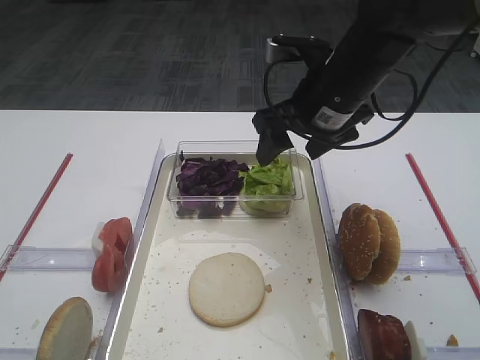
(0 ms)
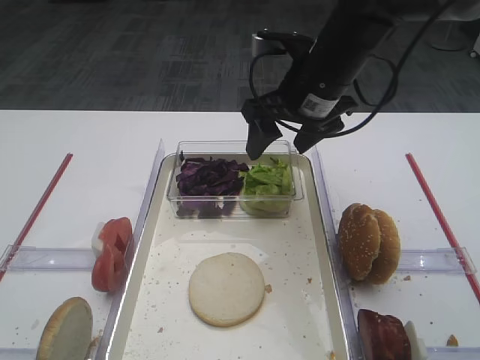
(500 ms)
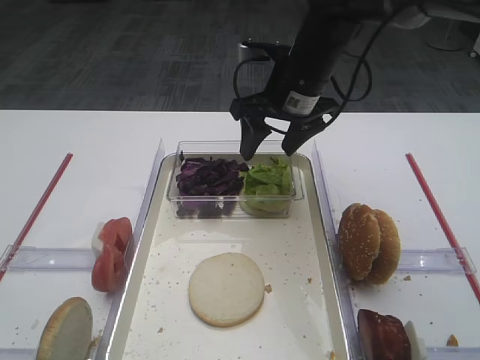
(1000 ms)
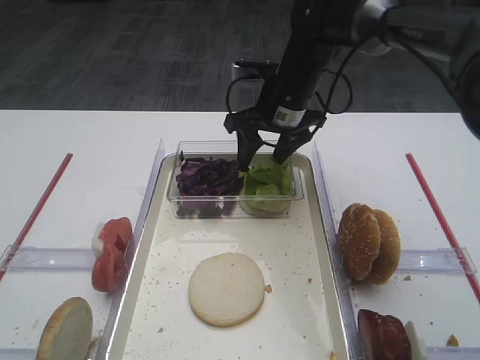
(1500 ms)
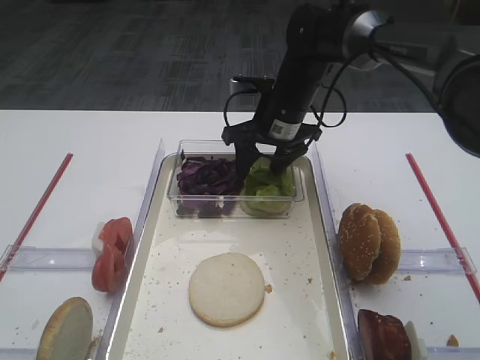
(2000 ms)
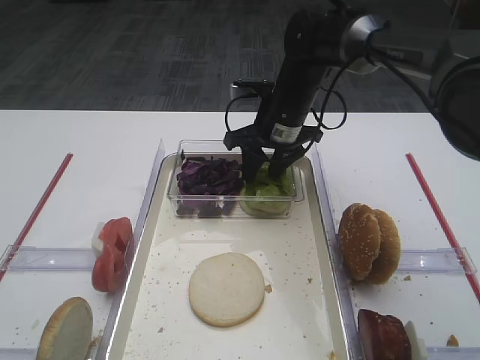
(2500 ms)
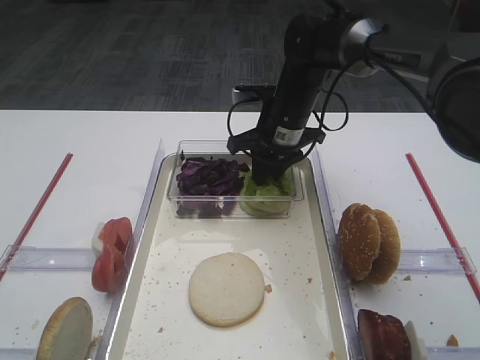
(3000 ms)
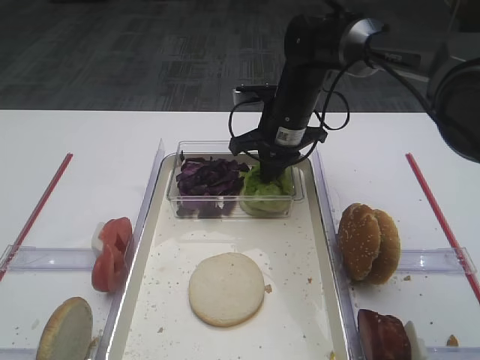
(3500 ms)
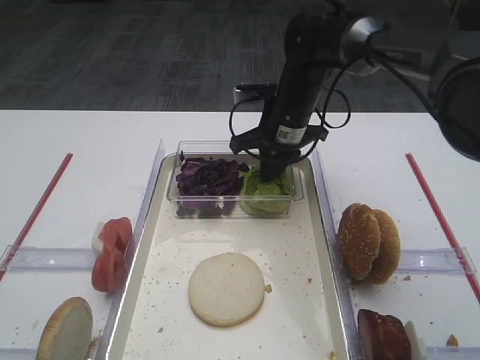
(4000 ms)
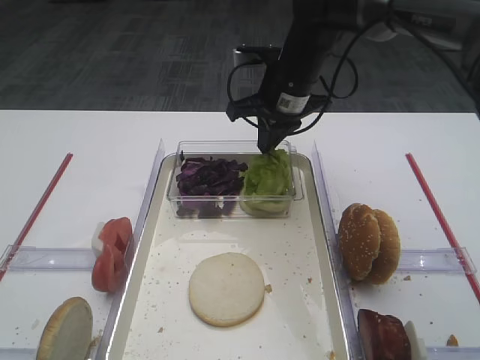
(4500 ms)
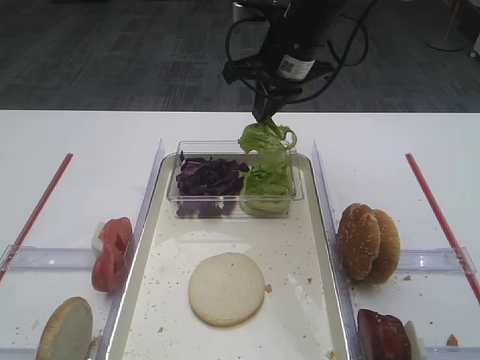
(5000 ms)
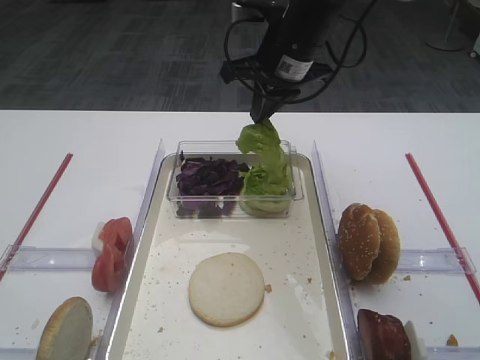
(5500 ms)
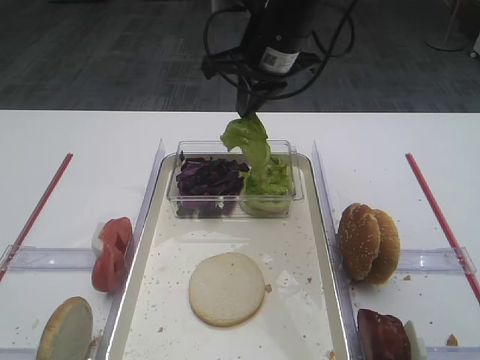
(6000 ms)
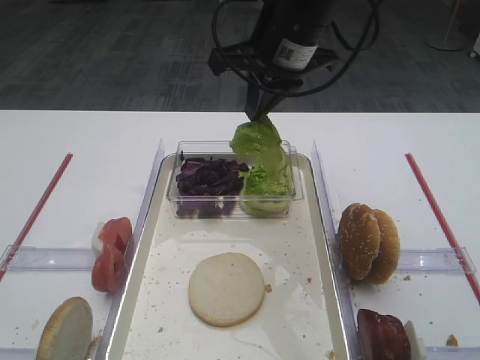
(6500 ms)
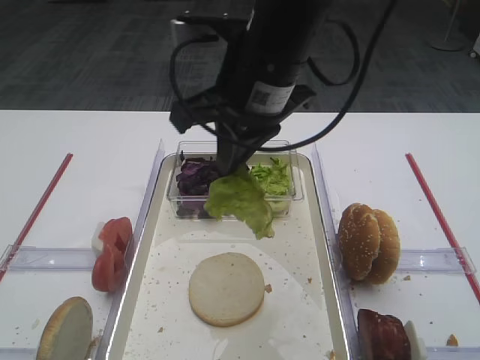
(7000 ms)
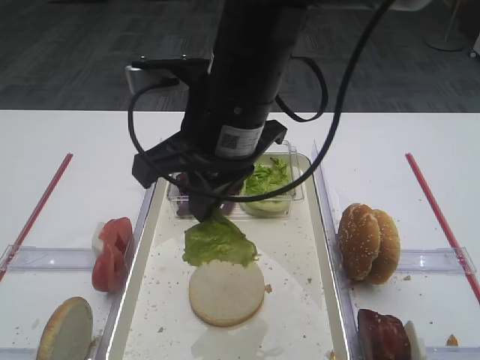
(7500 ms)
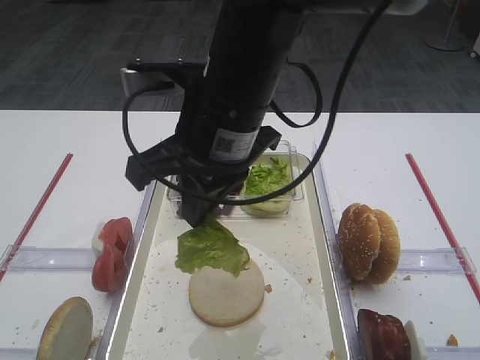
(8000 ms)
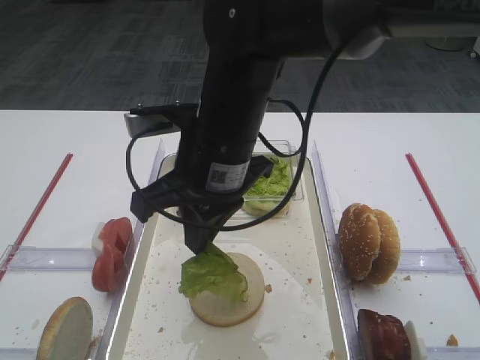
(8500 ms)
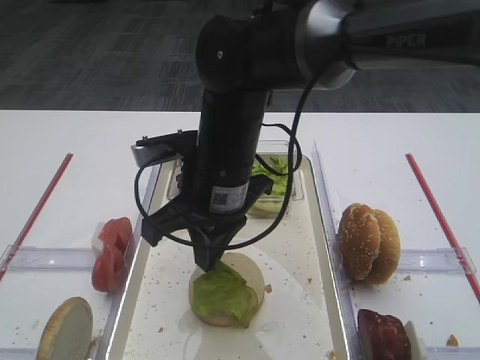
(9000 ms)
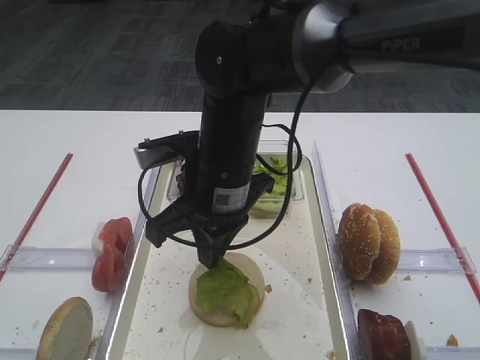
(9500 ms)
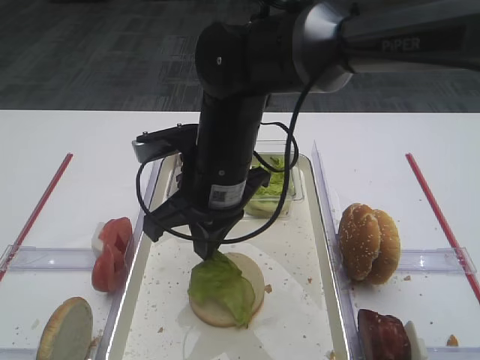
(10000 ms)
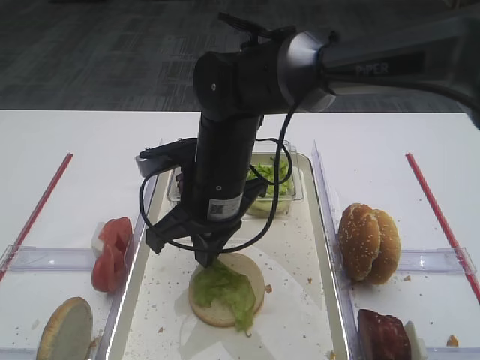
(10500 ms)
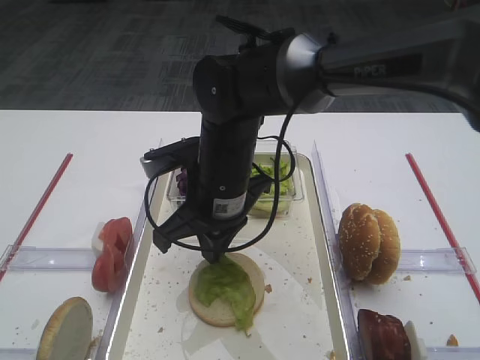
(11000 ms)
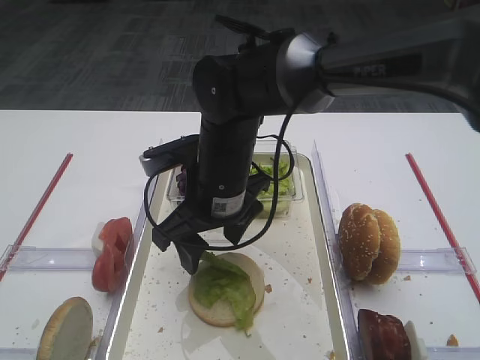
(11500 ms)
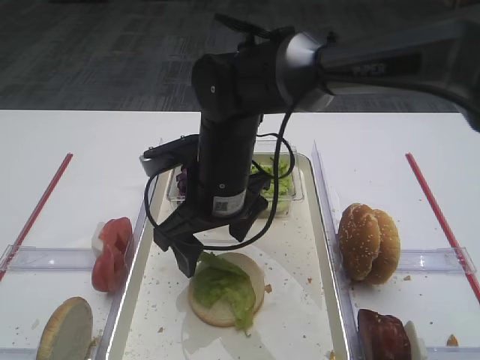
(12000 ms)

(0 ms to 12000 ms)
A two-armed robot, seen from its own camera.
Step, 0 ms - 5500 ms: Pick up the lettuce leaf with the right gripper.
Step, 6000 ms - 11500 ms: Place the lettuce leaf on the bread slice with the right gripper.
0 ms - 2000 ms: The right gripper goes some 10 cm forward and downward.
2000 ms - 4000 ms: The right gripper closes.
4000 ms - 6000 ms: The right gripper is displaced upward by approximately 15 cm.
6000 ms - 8000 ms: The right gripper moves backward, some 15 cm.
8000 ms - 10000 ms: The right gripper is displaced downward by about 10 cm.
10000 ms - 12000 ms: The right gripper opens up.

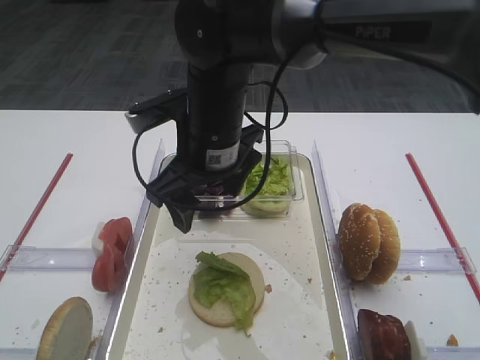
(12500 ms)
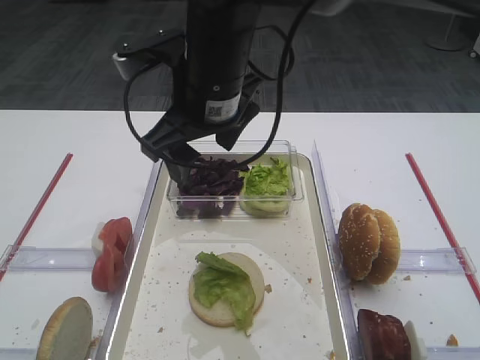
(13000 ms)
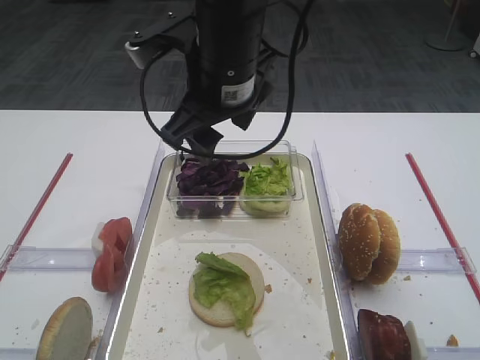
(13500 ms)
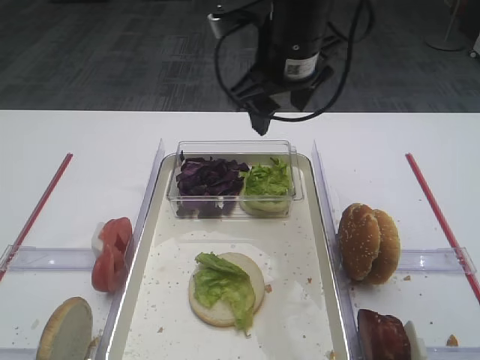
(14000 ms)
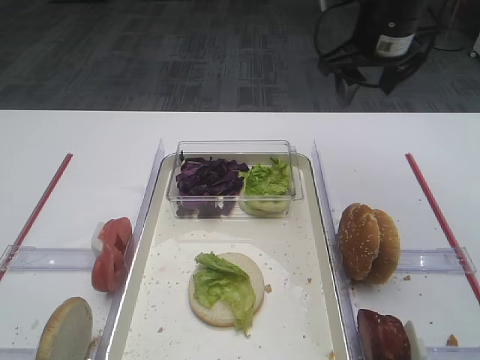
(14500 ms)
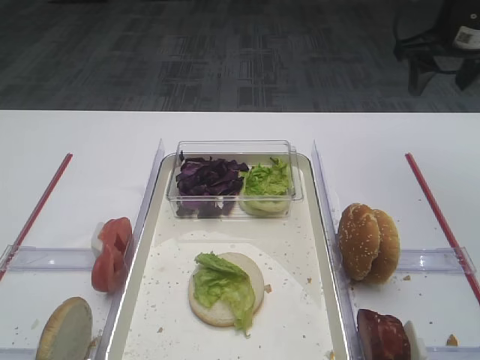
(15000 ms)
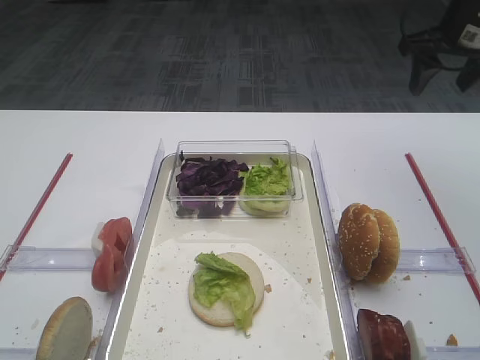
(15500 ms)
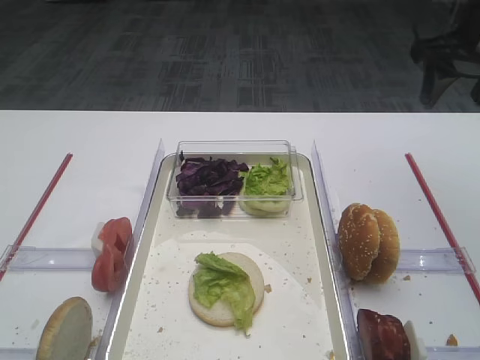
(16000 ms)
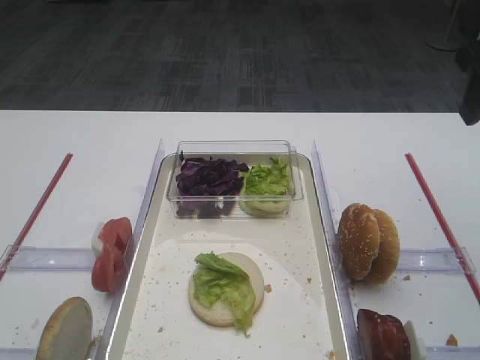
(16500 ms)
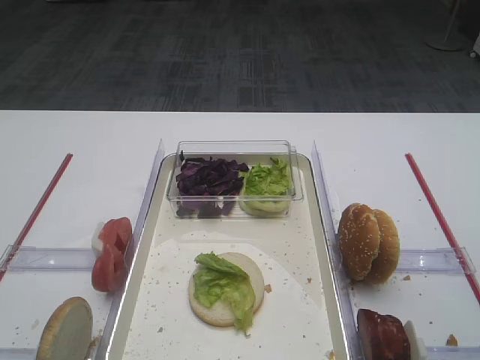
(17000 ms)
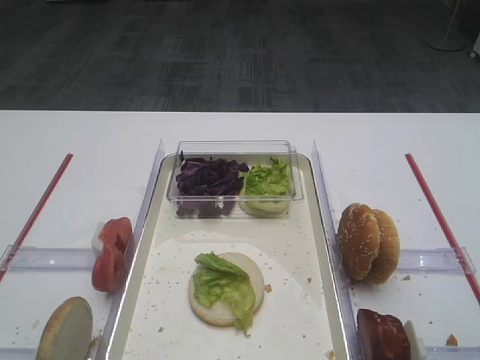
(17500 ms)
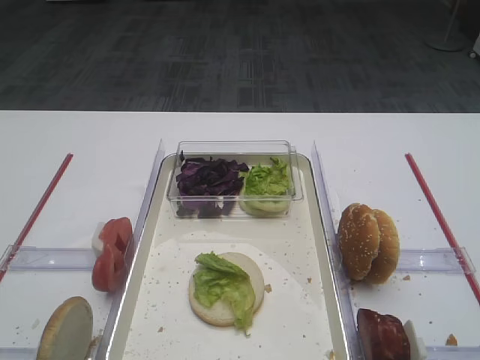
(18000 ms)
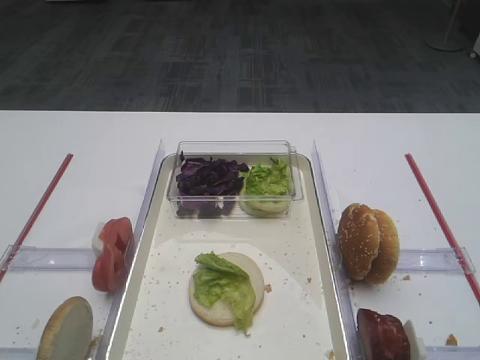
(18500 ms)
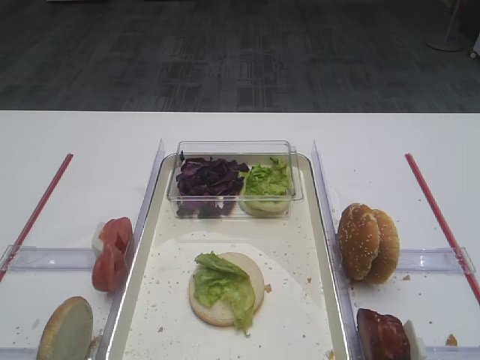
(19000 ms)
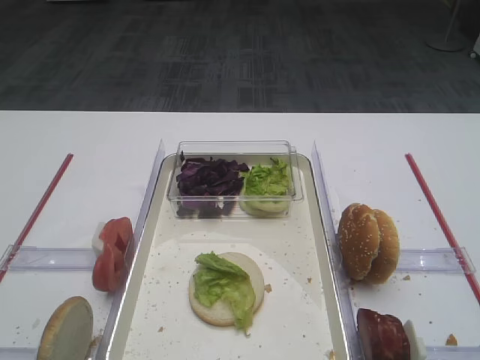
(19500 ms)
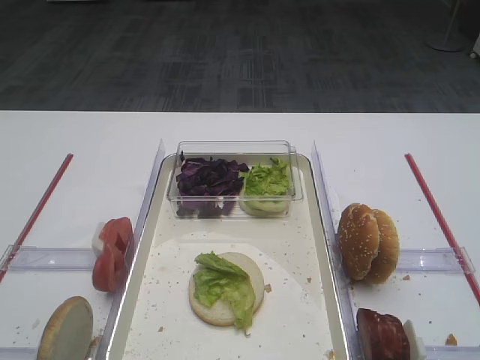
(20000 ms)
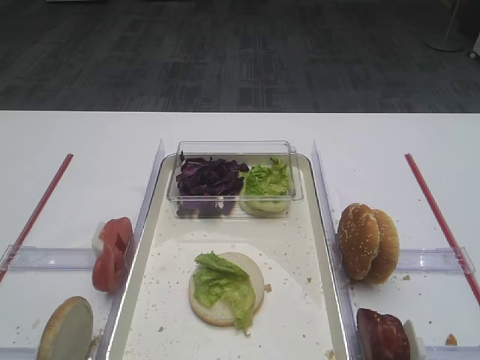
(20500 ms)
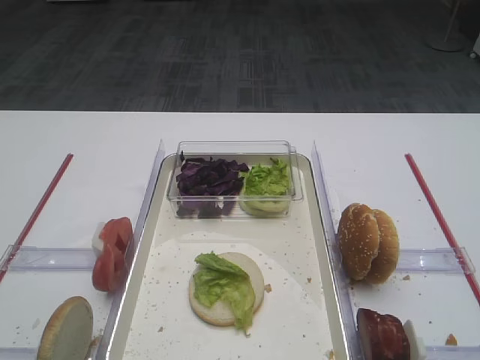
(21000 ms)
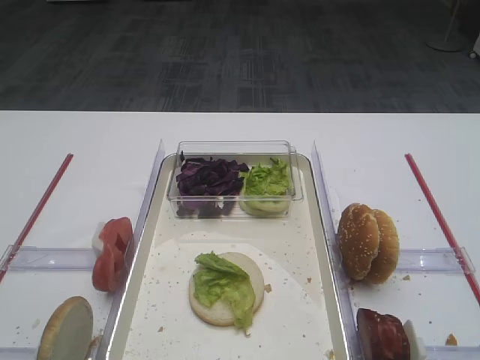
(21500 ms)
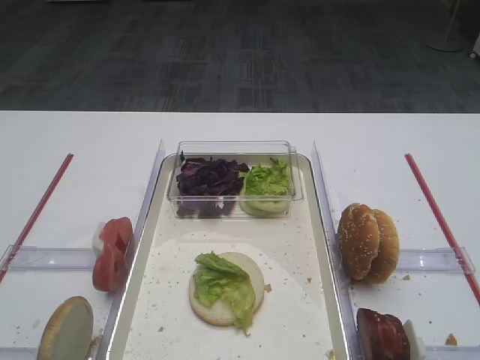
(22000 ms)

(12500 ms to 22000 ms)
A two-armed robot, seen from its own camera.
12500 ms - 14500 ms: The right gripper is displaced to the right and forward by some 25 cm.
14500 ms - 16500 ms: The right gripper is displaced backward and to the right by about 15 cm.
16500 ms - 18000 ms: The right gripper travels backward by about 25 cm.
20000 ms - 22000 ms: Both grippers stay about where they are.

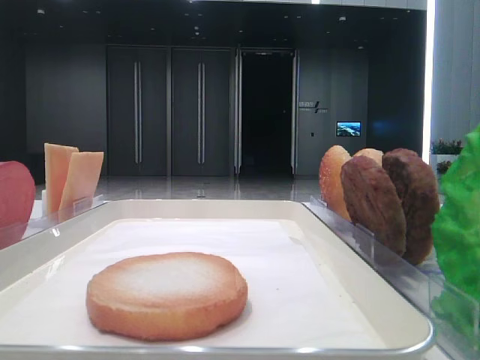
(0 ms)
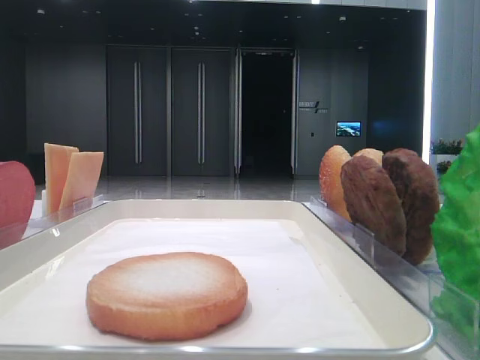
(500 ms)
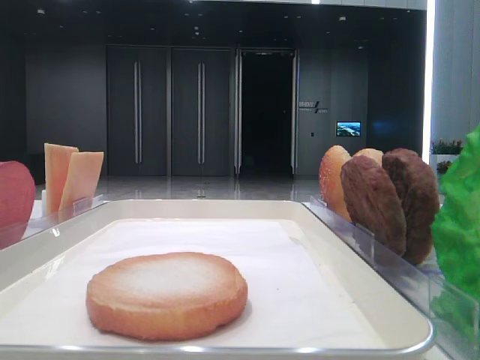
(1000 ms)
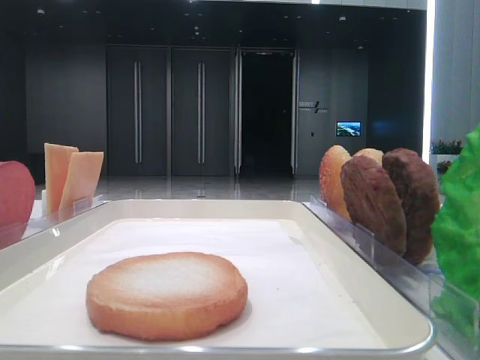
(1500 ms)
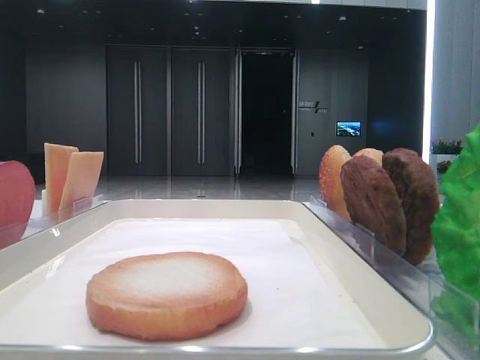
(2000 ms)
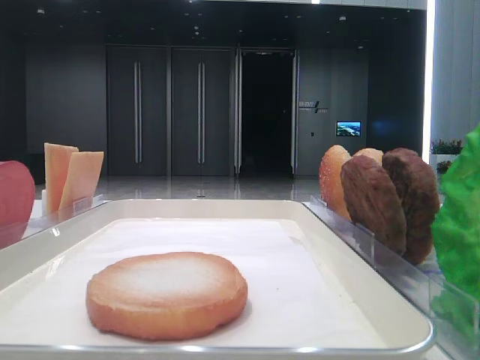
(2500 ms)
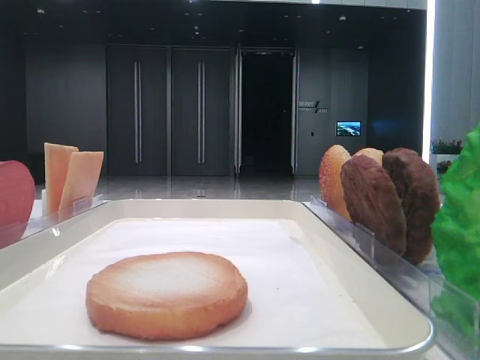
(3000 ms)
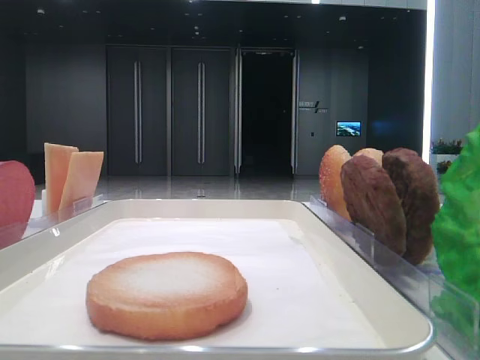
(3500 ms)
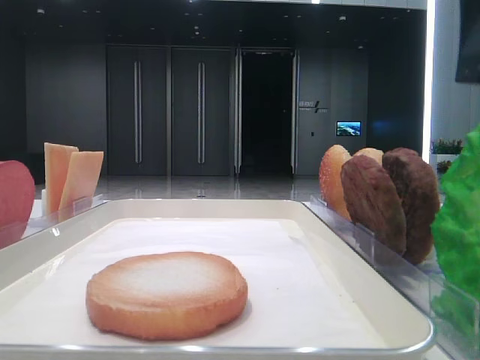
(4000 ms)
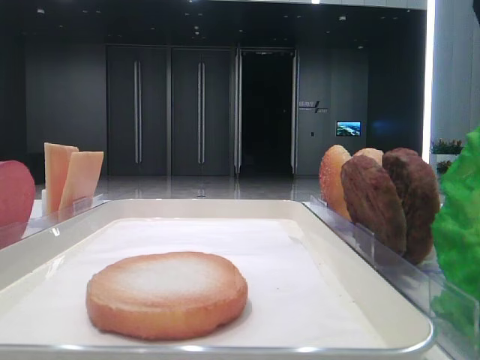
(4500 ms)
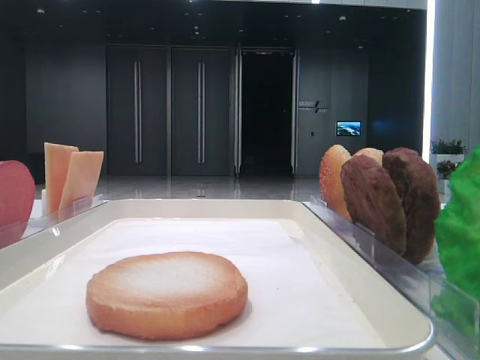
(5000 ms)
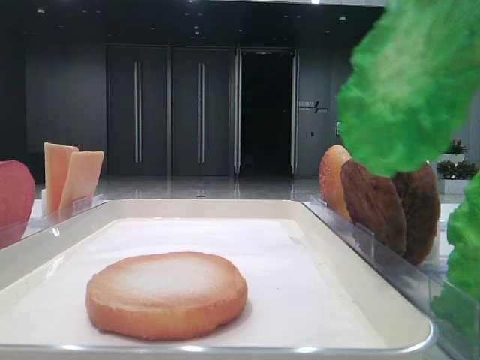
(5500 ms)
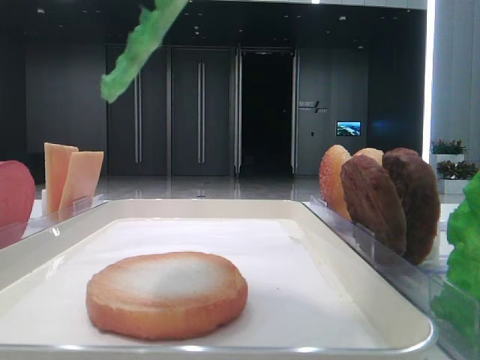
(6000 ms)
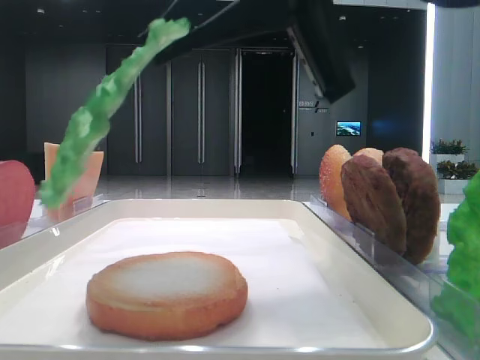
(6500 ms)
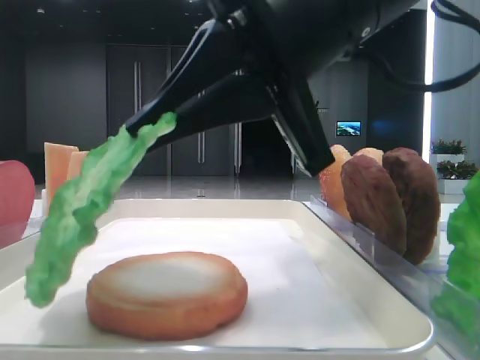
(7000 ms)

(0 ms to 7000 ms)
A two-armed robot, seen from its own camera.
Step, 0 ms - 4500 ms: Grab the lettuce leaf with the right hand.
5000 ms - 7000 ms: The right gripper is displaced to the left, forward and downward by about 15 cm.
